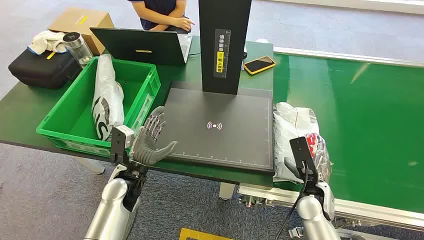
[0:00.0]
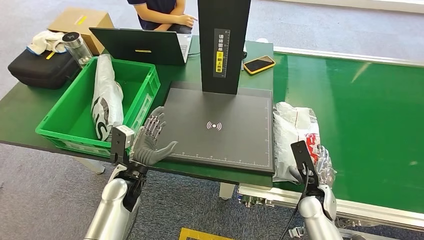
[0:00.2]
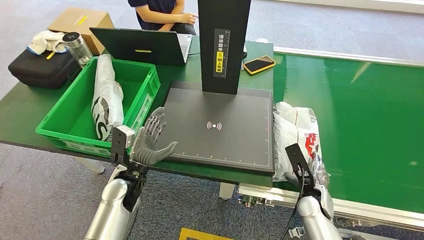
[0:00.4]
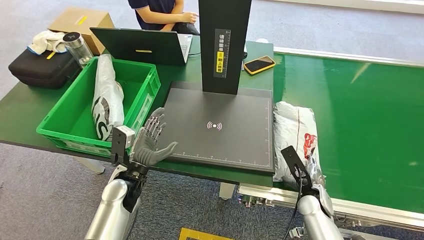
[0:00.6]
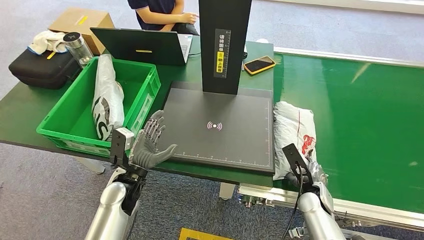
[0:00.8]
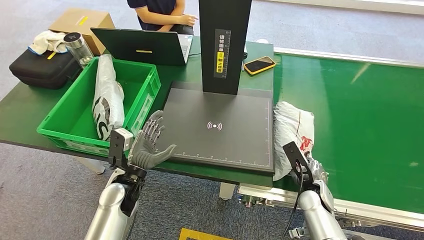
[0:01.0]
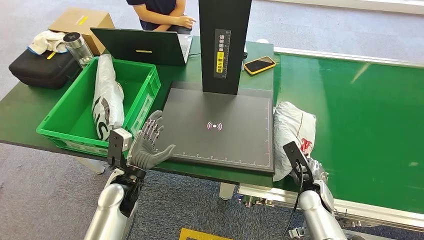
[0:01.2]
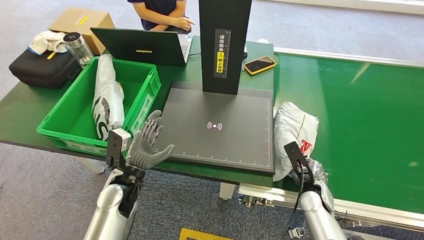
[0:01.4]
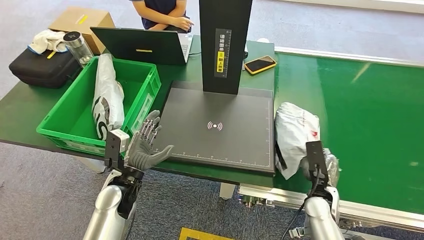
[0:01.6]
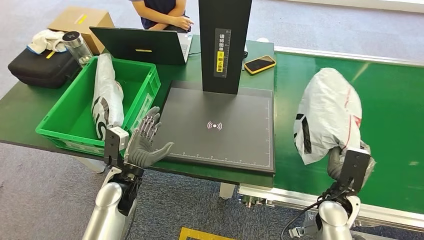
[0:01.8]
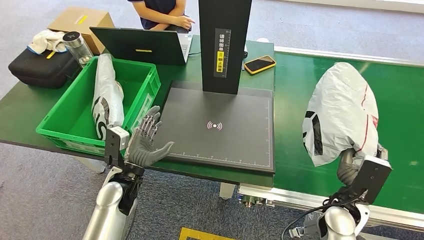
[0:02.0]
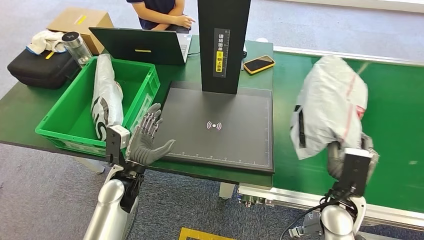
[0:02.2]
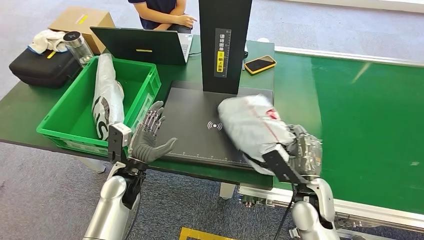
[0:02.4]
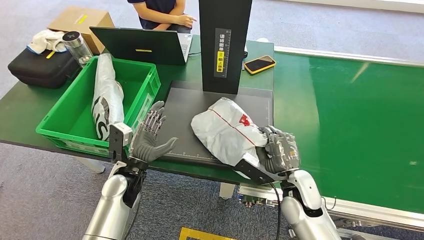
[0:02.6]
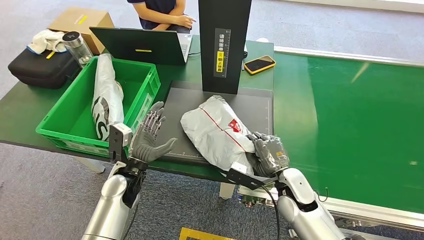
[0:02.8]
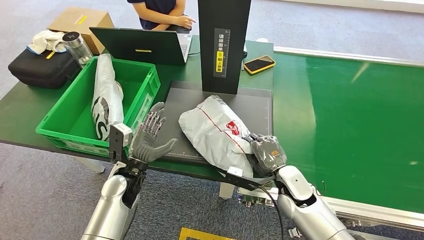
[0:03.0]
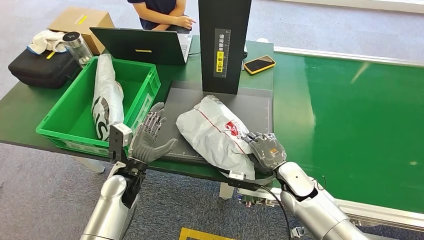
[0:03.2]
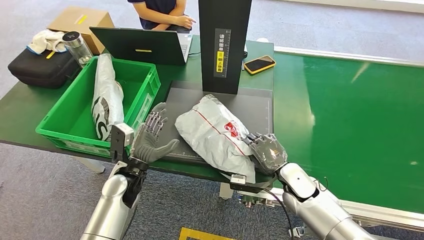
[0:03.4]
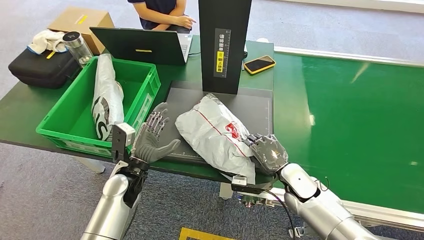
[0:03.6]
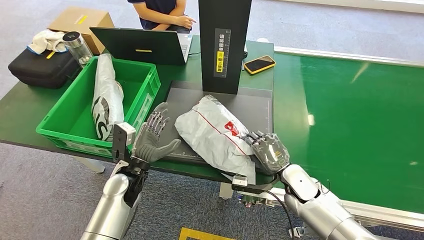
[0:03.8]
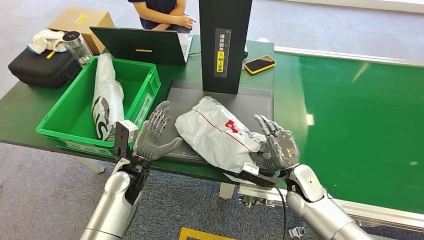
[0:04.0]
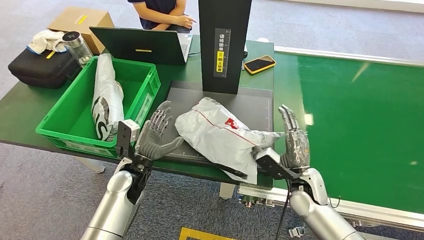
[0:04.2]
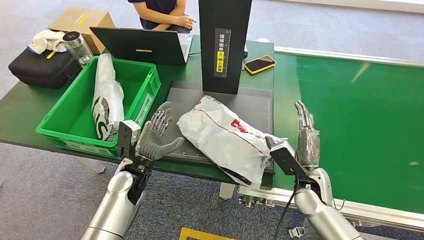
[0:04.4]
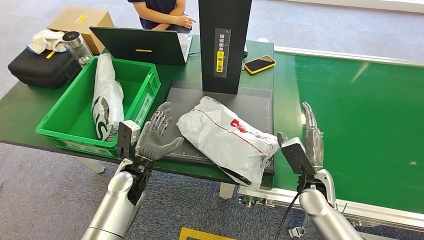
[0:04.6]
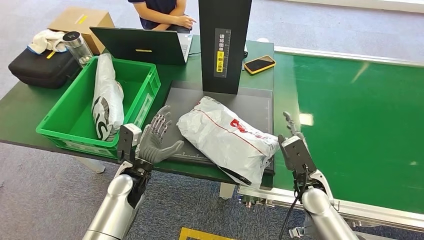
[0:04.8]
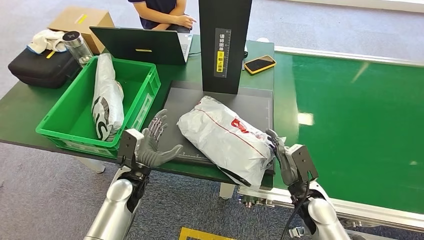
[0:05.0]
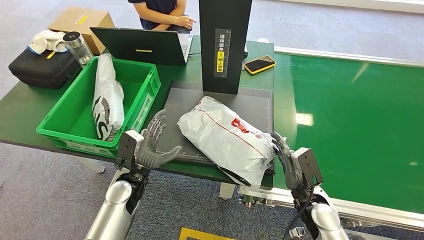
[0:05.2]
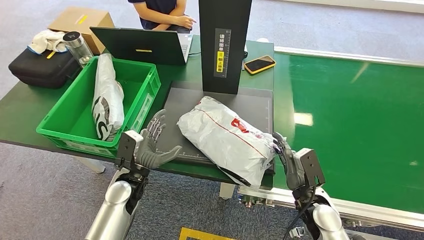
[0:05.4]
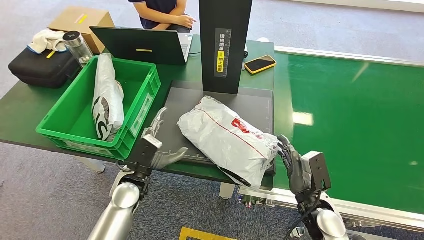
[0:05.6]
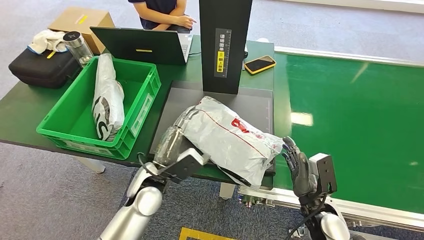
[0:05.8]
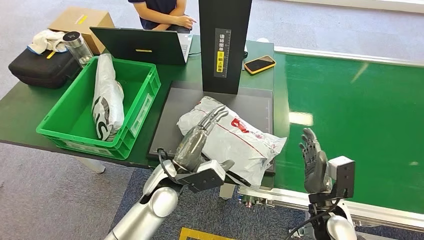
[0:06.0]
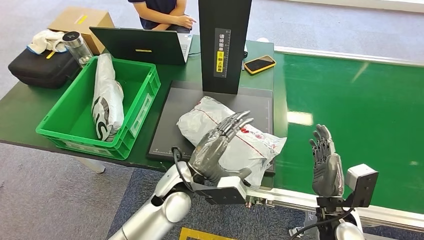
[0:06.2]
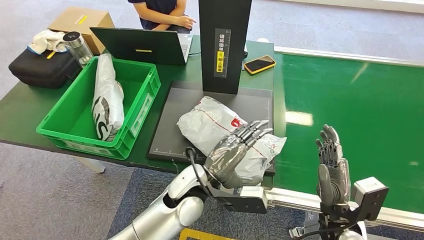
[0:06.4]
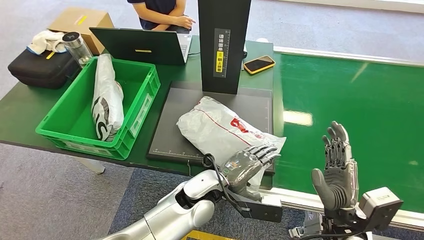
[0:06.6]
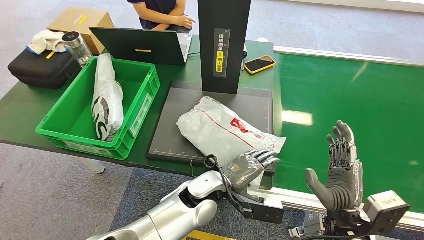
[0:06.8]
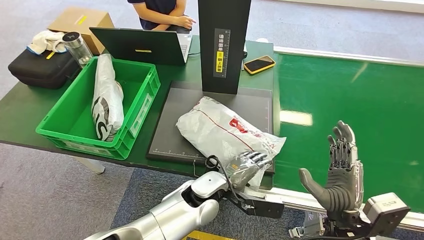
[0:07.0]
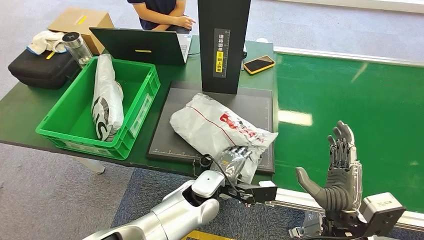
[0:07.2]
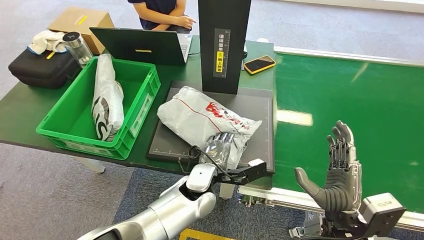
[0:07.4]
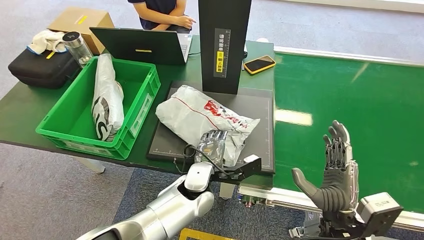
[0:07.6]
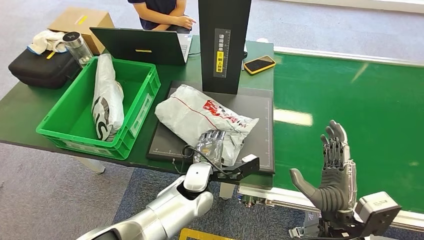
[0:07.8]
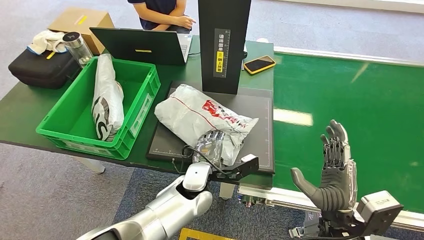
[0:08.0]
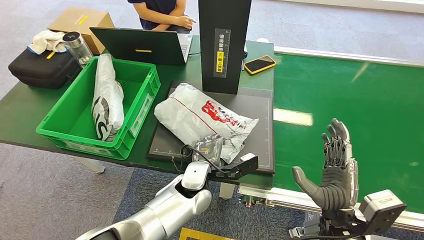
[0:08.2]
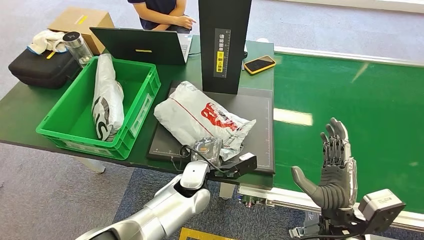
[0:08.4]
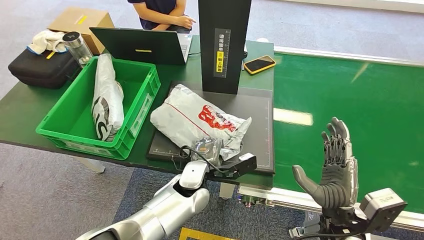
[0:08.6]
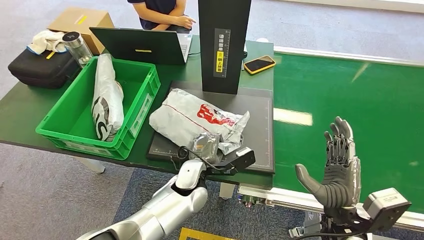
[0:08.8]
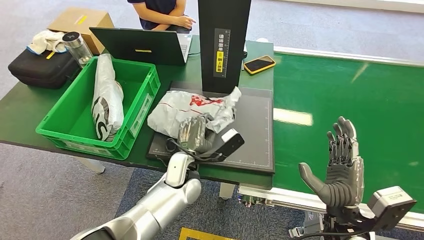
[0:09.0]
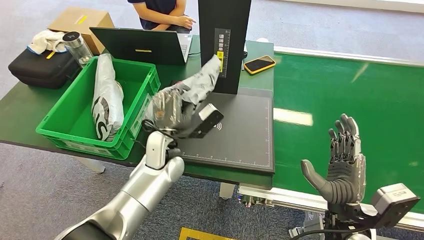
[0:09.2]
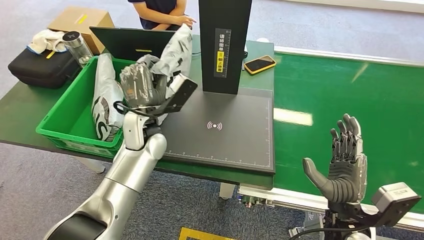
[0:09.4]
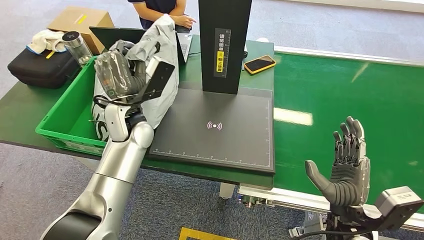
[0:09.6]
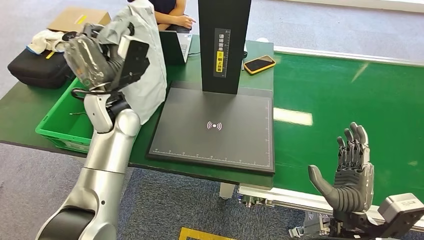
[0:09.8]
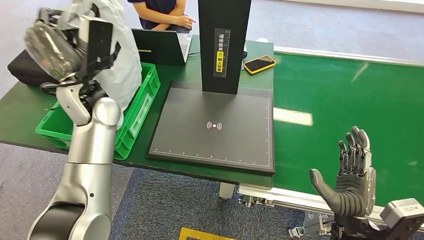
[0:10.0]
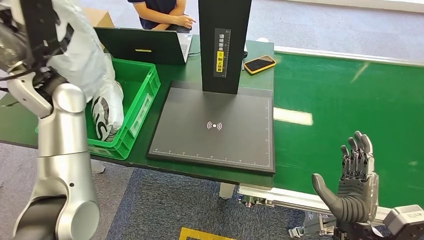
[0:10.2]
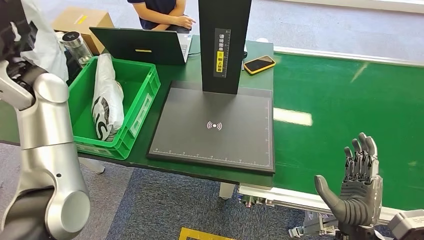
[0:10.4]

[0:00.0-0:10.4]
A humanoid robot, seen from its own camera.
Step, 0:00.0 to 0:01.6: Pick up the package from the conveyor belt.
Step, 0:01.8 to 0:04.4: Place the package onto the inbound machine.
Step, 0:05.6 to 0:09.8: Pick up the package from the inbound machine.
0:01.4 to 0:03.0: The right hand moves upward and to the left, about 10 cm.
0:03.0 to 0:04.4: The right hand is displaced to the right by about 5 cm.
0:04.4 to 0:06.0: The right hand is displaced backward by roughly 10 cm, while the left hand goes approximately 10 cm to the right.
0:06.0 to 0:07.4: The right hand travels upward by about 5 cm.

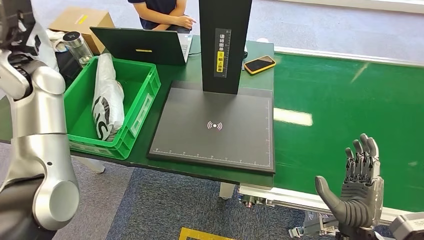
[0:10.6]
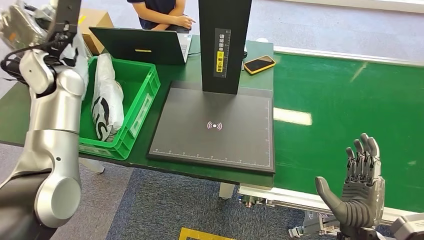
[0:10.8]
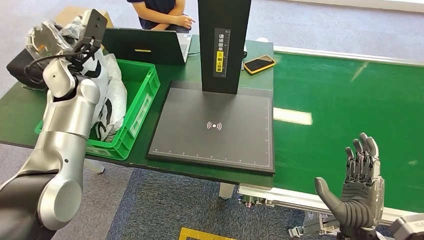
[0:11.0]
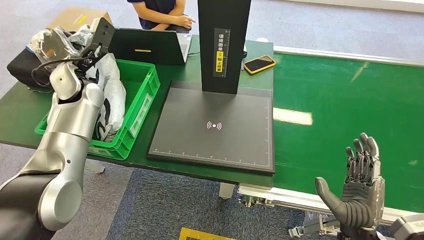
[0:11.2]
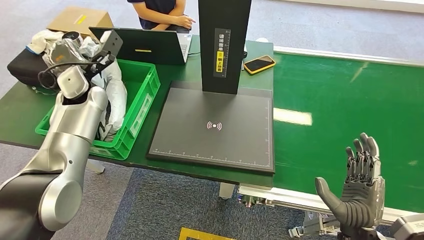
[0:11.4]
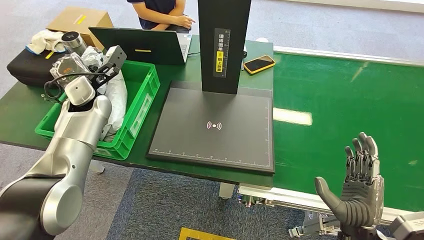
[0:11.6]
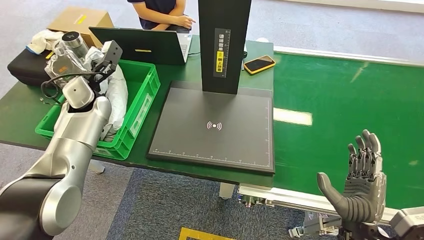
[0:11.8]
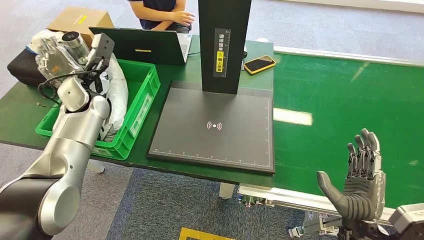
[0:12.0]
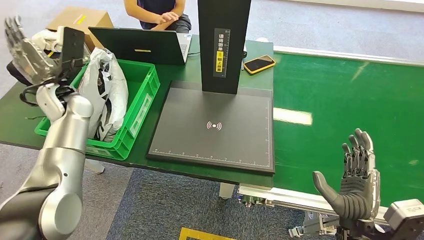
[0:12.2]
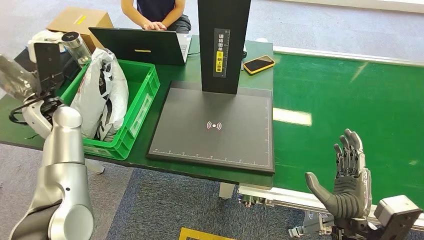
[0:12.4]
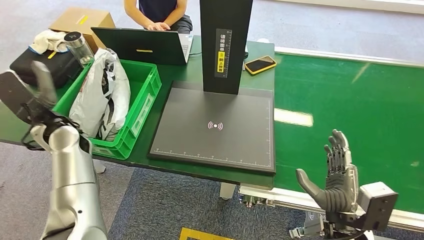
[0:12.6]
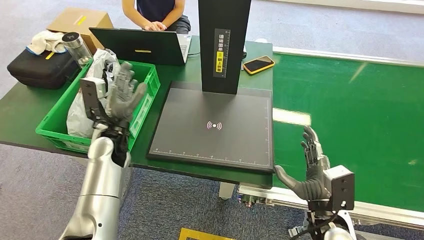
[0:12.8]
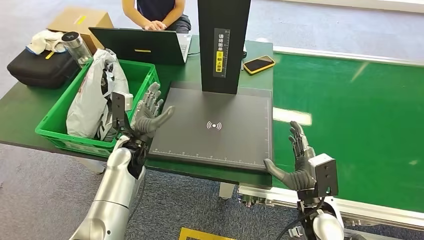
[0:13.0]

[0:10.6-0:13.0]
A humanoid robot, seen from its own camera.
Step, 0:10.6 to 0:12.8: Place the package into the parcel locker.
0:10.6 to 0:11.8: The left hand heads downward, covering roughly 10 cm.

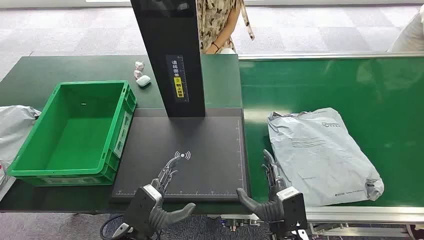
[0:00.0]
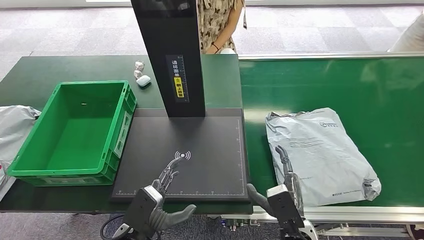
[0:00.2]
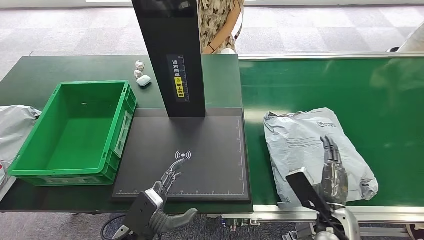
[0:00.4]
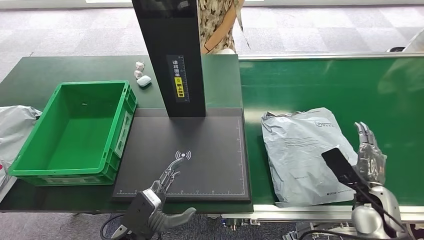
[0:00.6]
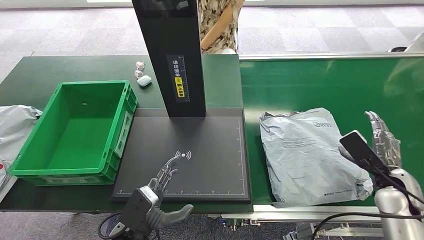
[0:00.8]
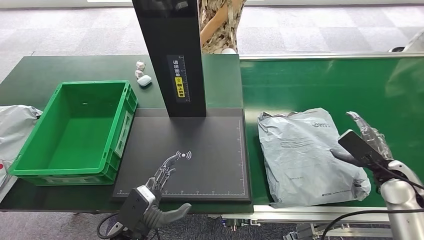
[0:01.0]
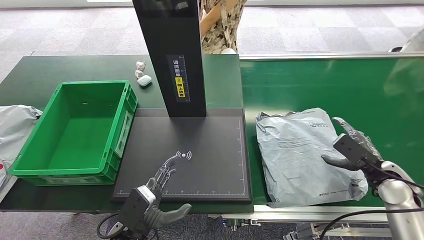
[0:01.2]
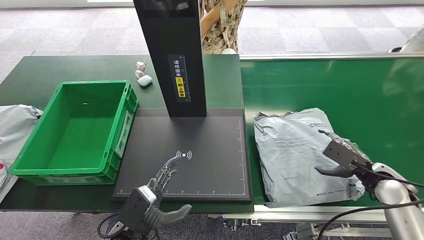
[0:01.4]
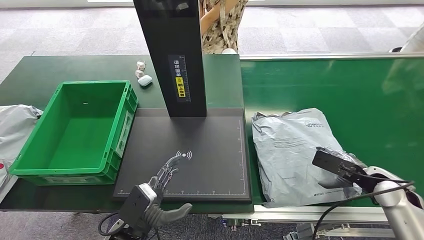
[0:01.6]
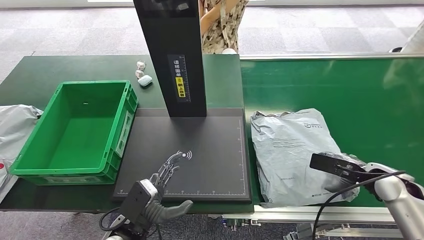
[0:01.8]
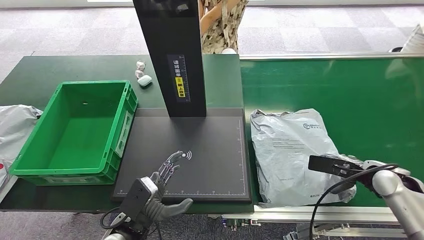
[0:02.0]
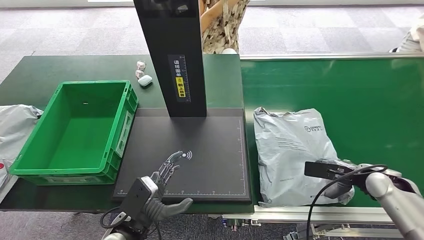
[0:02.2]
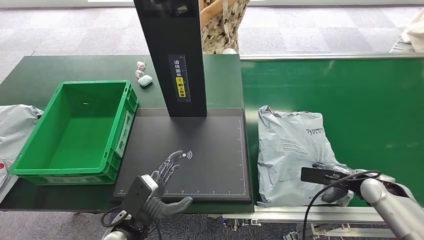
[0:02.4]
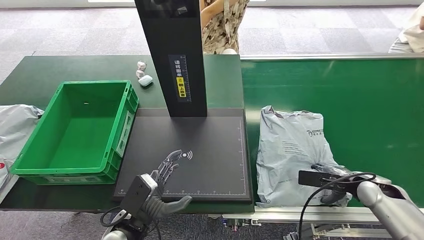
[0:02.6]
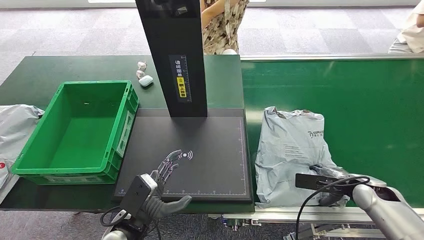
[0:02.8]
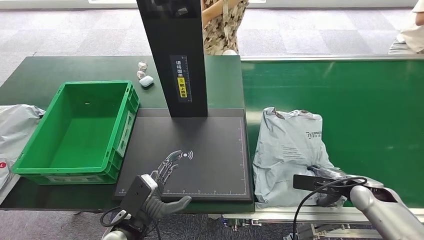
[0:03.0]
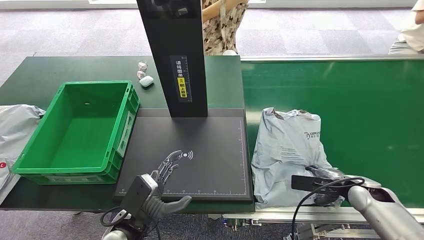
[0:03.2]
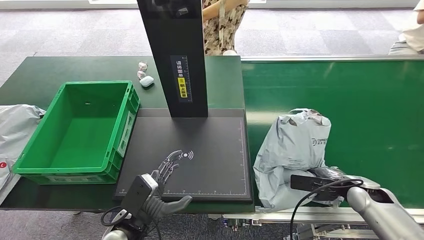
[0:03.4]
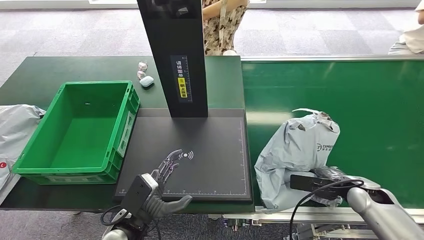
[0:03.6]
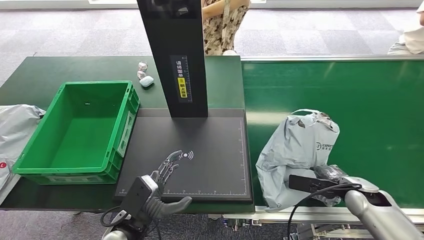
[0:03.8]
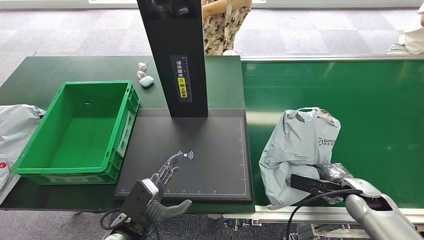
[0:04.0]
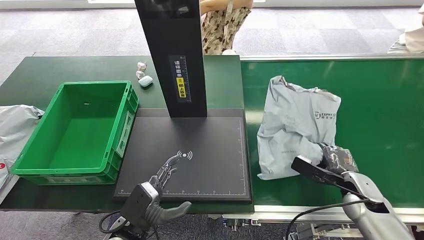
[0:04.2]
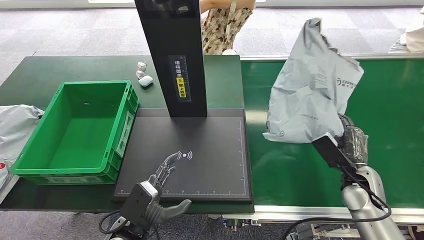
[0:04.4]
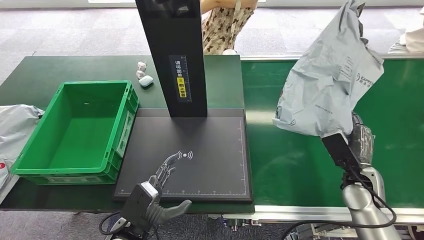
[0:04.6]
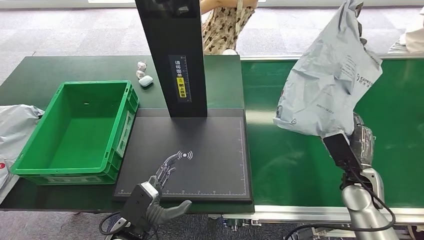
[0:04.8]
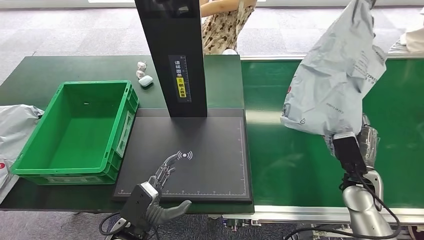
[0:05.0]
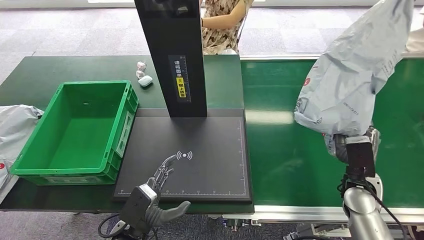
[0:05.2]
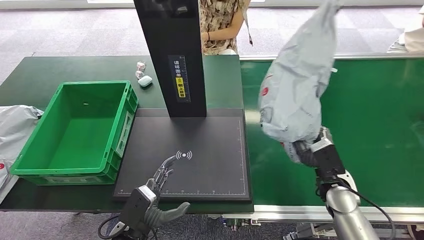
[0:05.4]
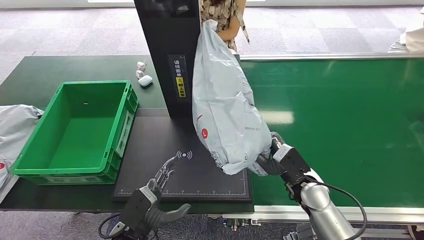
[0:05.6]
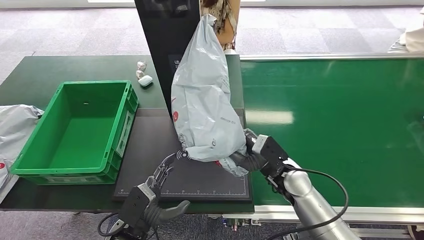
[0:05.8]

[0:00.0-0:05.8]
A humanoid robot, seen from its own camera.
Step, 0:00.0 to 0:04.8: Pick up the package from the conveyor belt.
0:01.4 to 0:02.8: The right hand moves some 5 cm.
